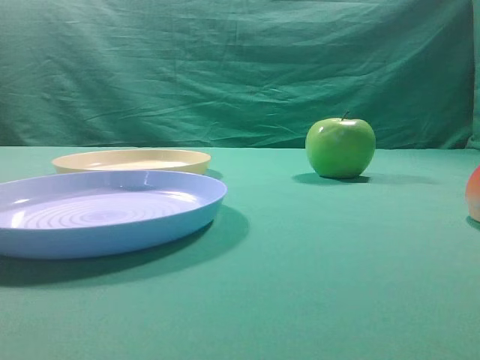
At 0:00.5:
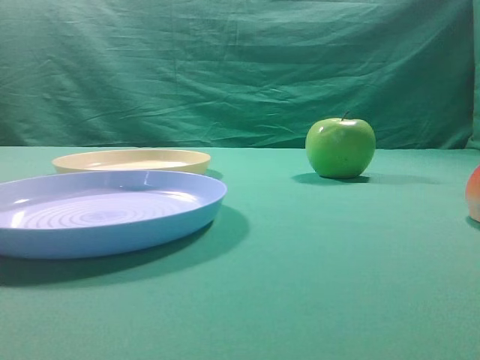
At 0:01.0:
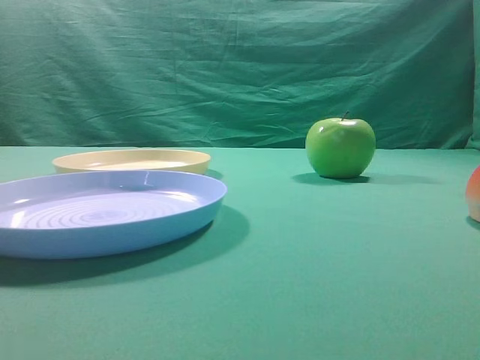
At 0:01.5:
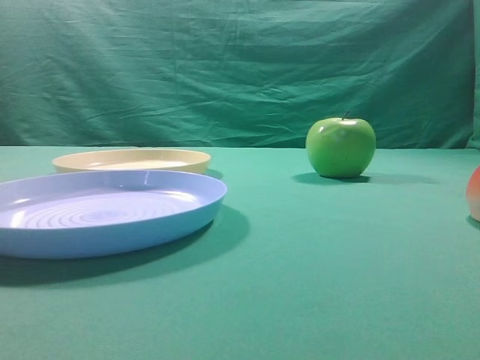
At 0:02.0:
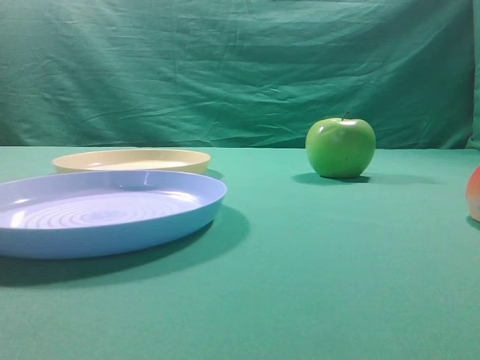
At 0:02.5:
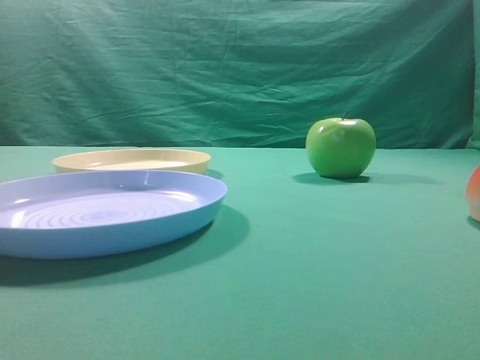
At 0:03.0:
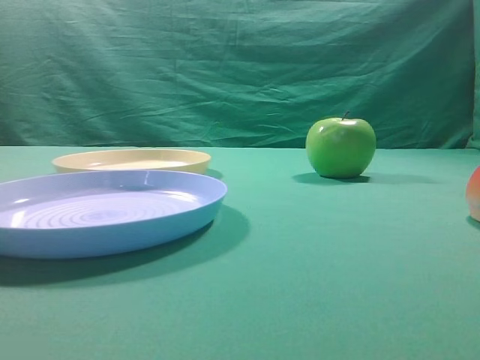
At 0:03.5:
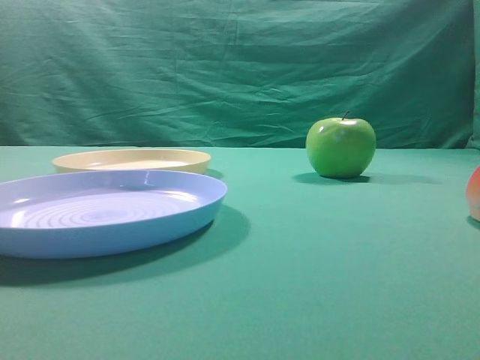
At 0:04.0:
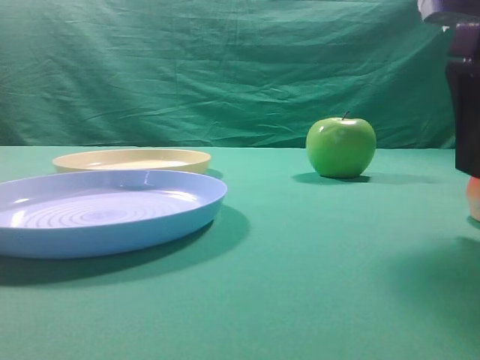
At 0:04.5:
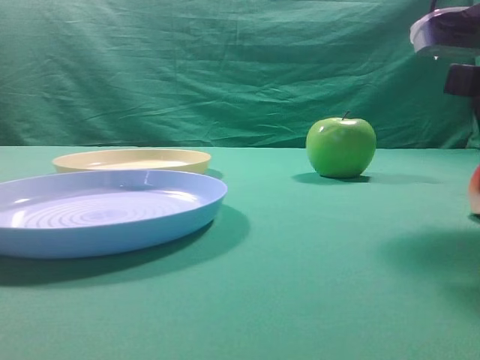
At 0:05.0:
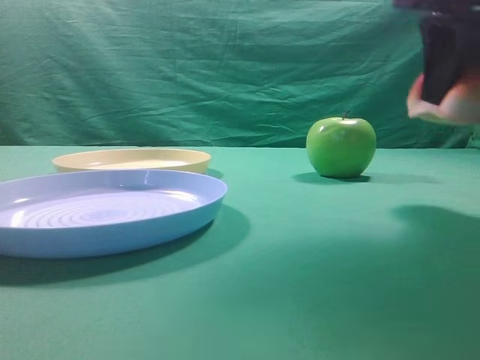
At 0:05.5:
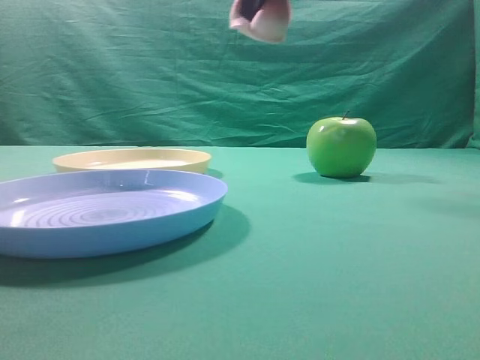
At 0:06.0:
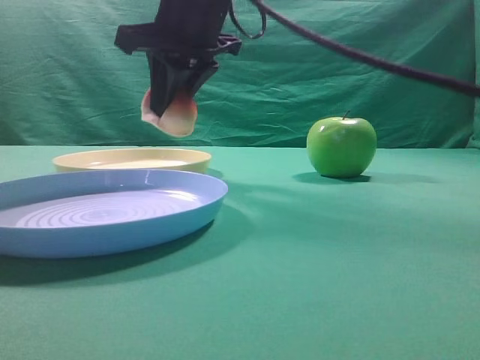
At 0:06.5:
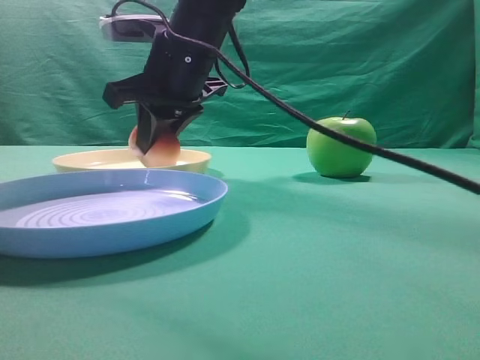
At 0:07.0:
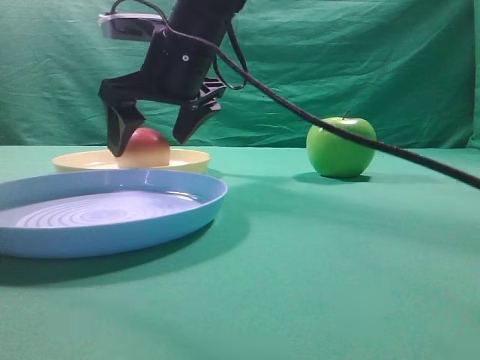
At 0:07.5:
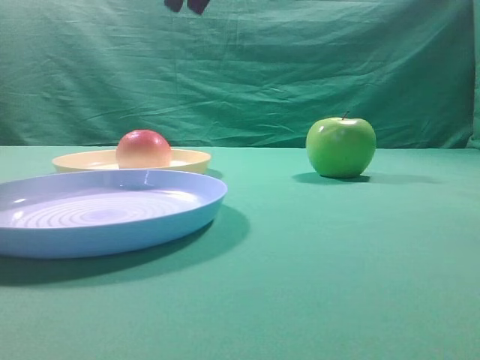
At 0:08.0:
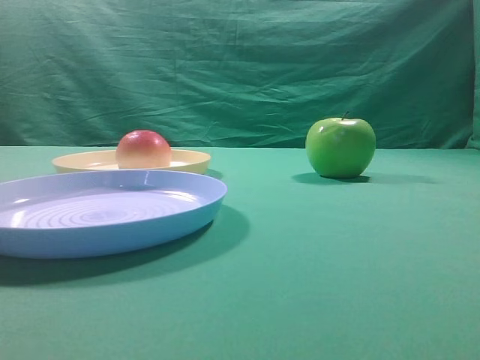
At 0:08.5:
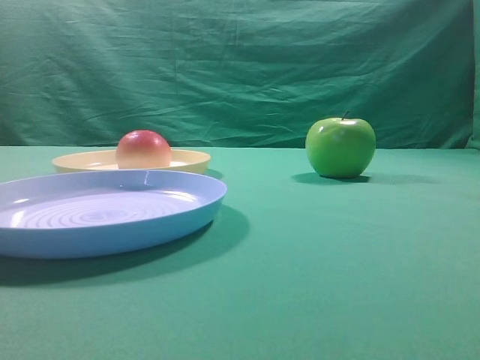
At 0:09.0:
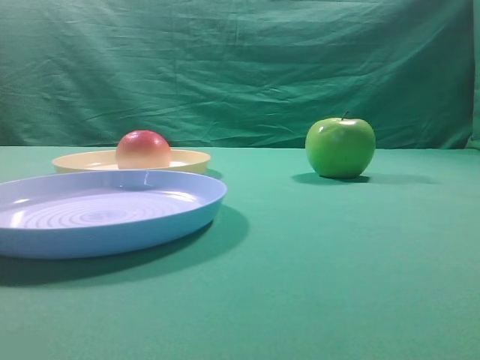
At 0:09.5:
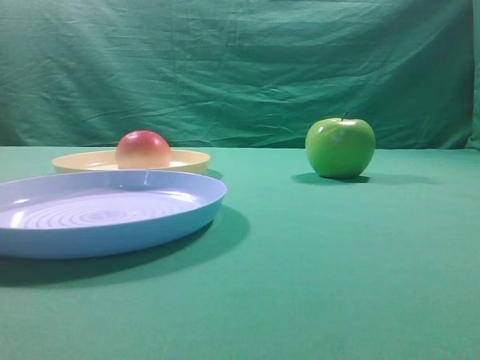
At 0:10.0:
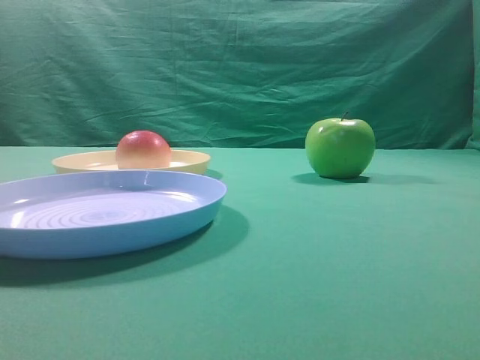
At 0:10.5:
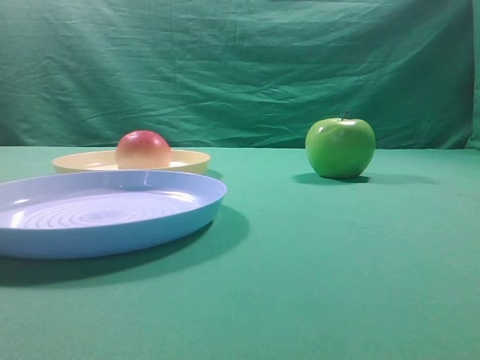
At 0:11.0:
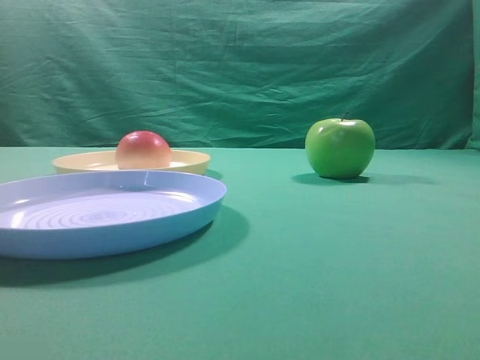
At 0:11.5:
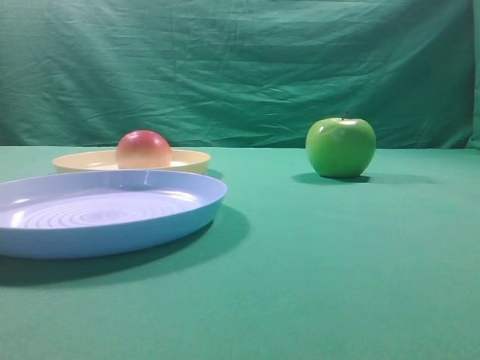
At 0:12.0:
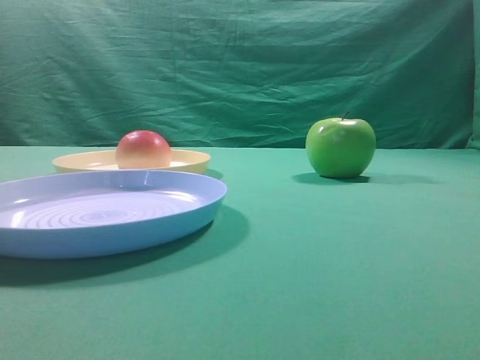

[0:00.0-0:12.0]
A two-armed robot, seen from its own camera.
Step, 0:05.0 to 0:07.0: Place the picked object on the yellow plate.
